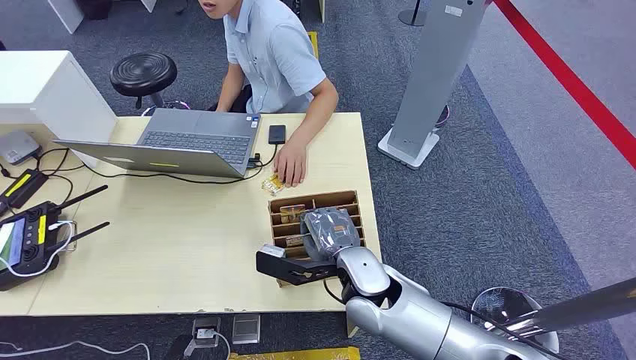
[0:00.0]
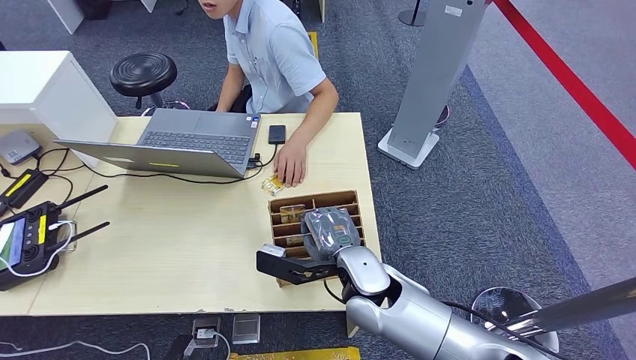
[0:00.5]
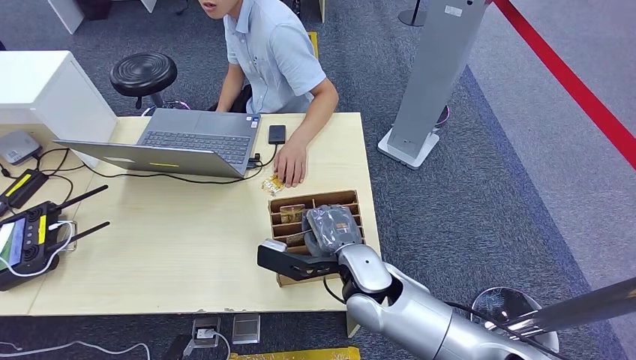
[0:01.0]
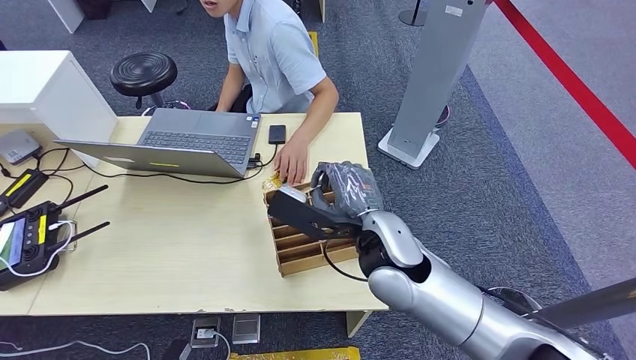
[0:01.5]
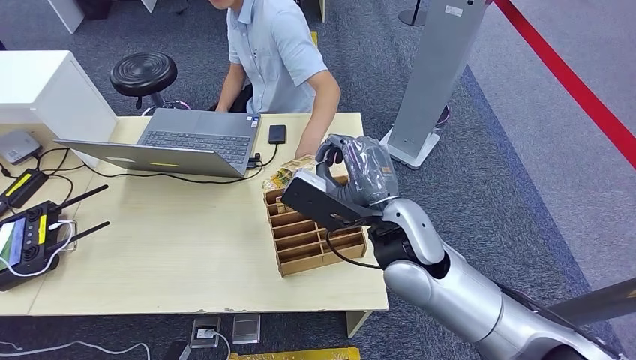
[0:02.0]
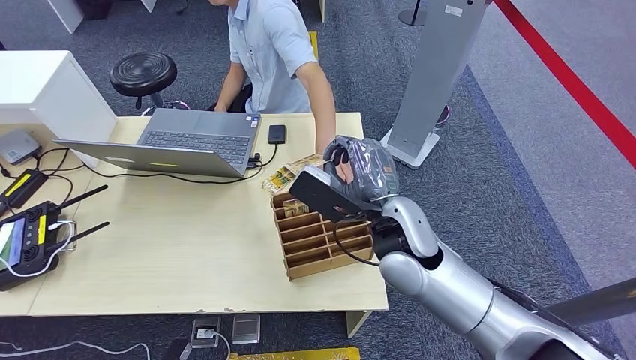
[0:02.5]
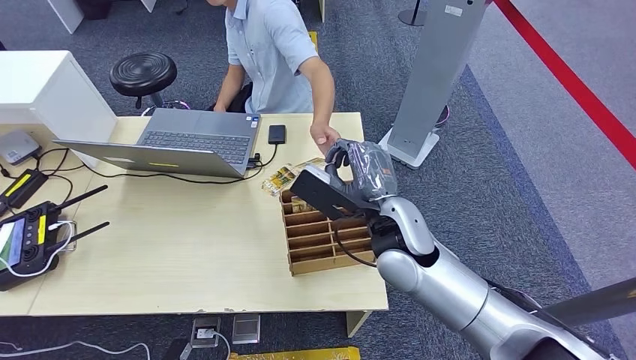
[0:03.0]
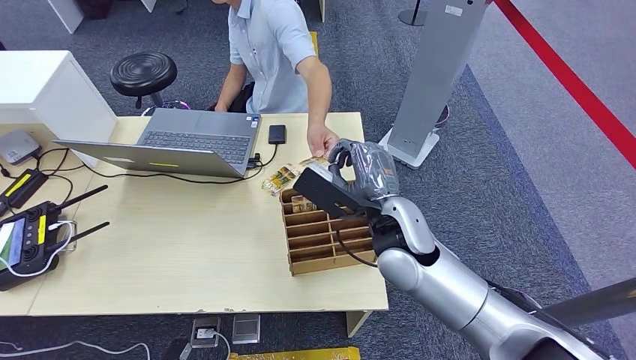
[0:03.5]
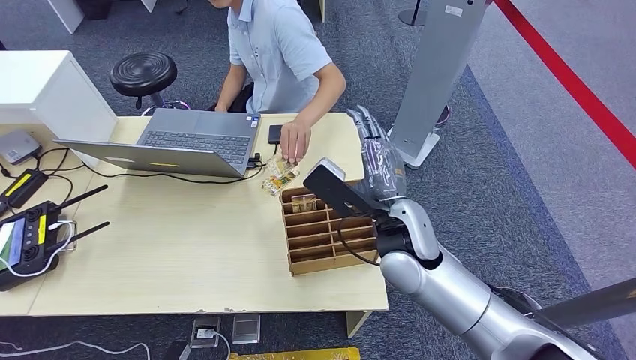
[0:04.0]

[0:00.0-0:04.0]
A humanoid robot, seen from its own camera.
Task of the whole recording: Pick up the card and hand it over to the target person.
Step, 0:00.0 to 0:01.5: Pick up the key card from the card box.
Step, 0:02.0 to 0:04.0: Hand the key card to the target.
0:02.0 to 0:04.0: The hands make only small movements.
